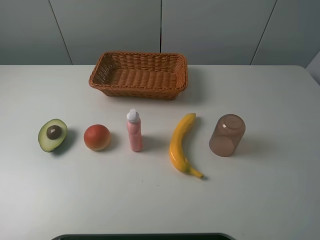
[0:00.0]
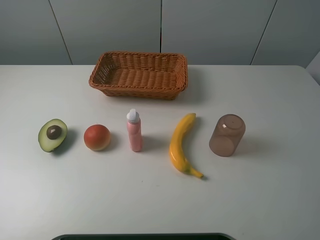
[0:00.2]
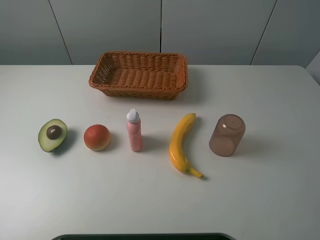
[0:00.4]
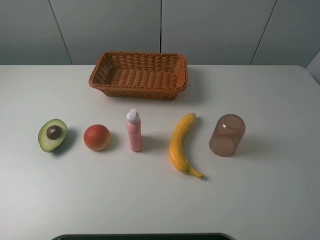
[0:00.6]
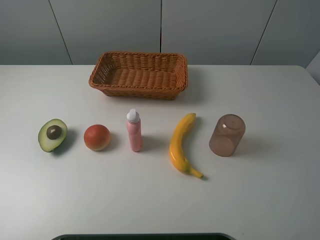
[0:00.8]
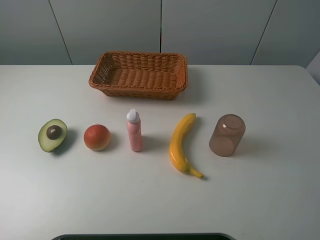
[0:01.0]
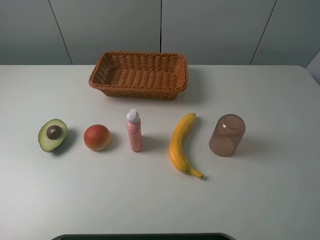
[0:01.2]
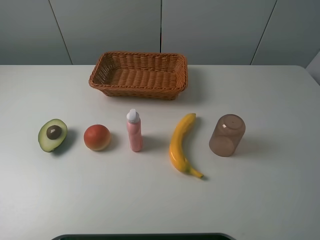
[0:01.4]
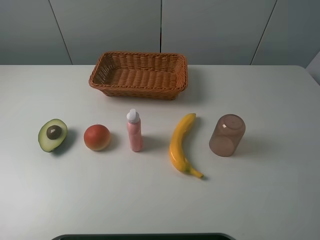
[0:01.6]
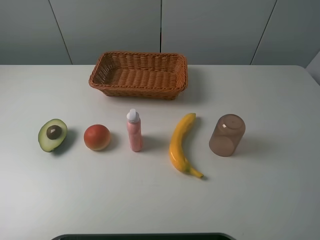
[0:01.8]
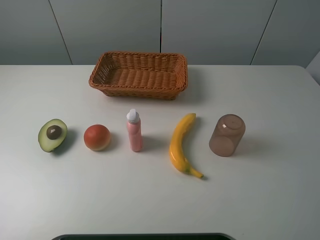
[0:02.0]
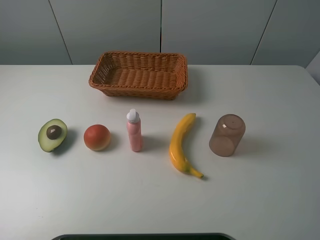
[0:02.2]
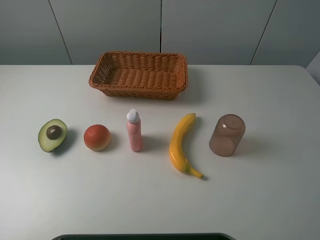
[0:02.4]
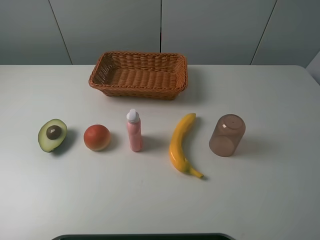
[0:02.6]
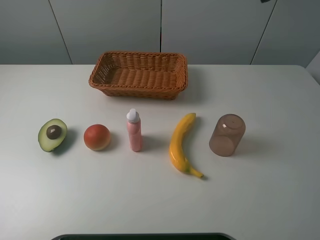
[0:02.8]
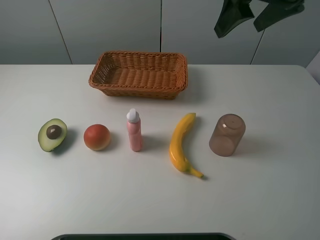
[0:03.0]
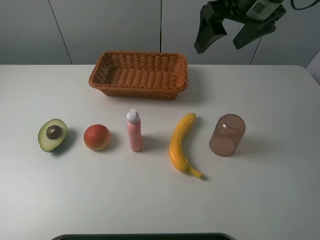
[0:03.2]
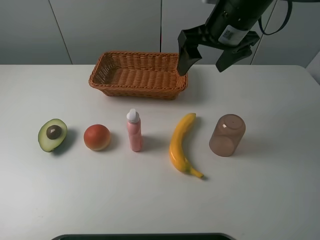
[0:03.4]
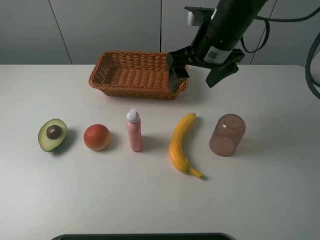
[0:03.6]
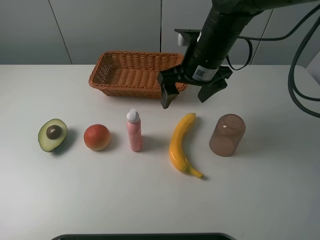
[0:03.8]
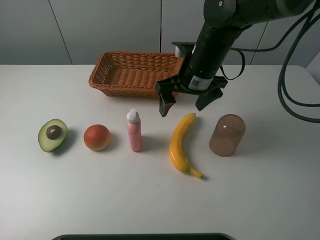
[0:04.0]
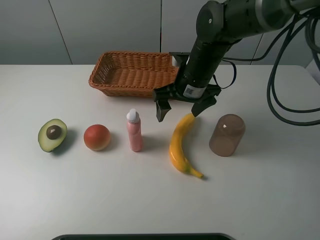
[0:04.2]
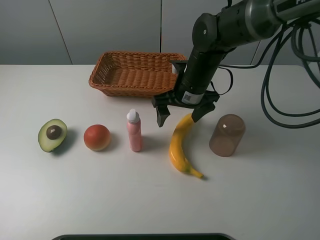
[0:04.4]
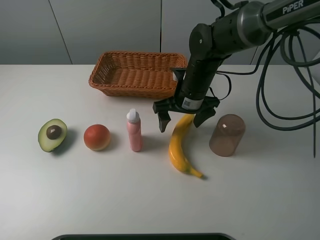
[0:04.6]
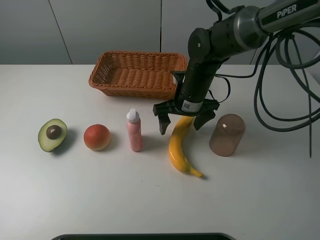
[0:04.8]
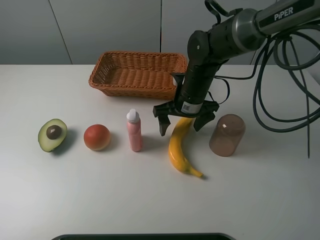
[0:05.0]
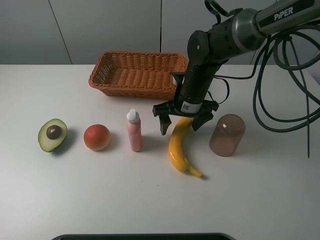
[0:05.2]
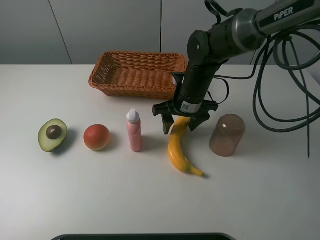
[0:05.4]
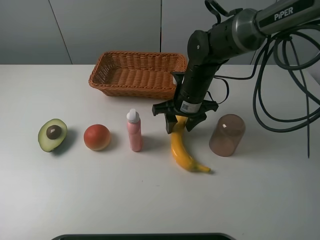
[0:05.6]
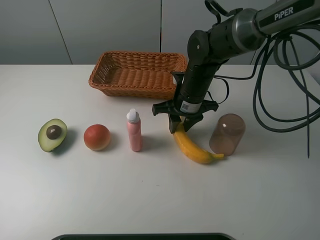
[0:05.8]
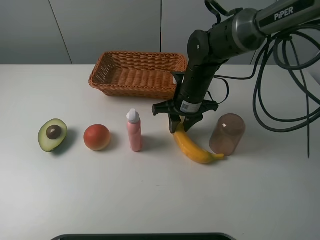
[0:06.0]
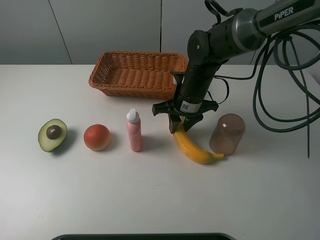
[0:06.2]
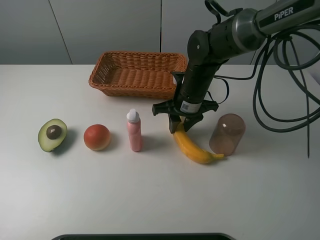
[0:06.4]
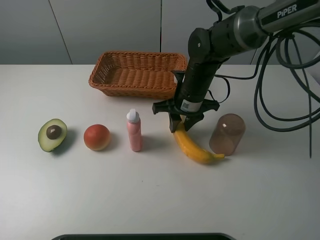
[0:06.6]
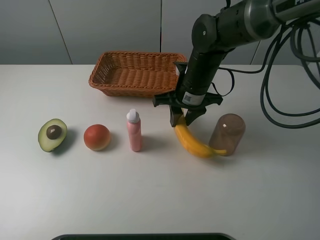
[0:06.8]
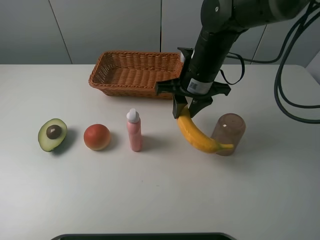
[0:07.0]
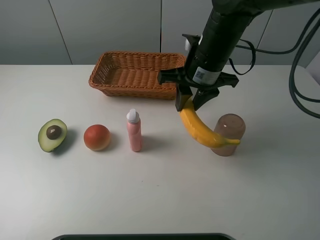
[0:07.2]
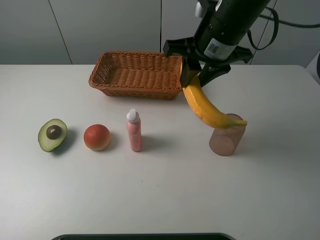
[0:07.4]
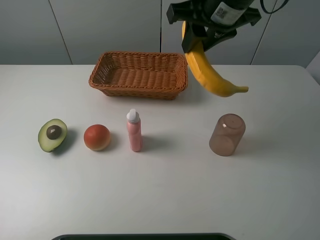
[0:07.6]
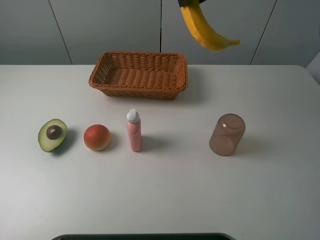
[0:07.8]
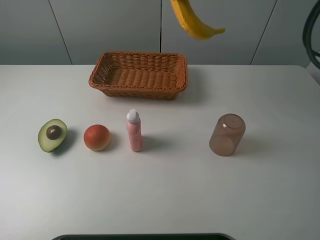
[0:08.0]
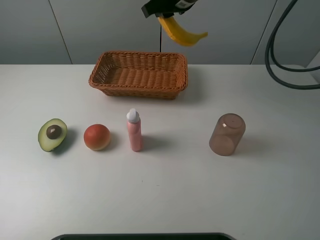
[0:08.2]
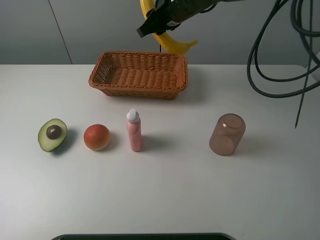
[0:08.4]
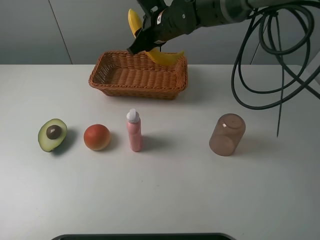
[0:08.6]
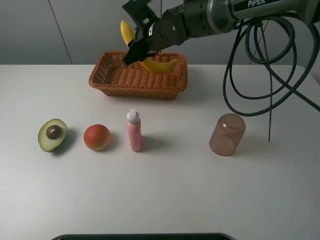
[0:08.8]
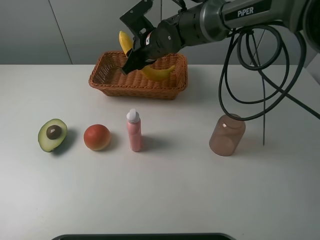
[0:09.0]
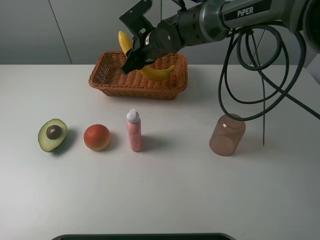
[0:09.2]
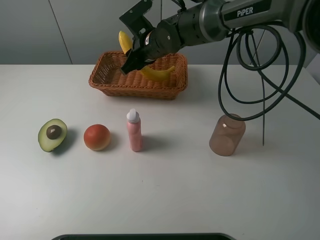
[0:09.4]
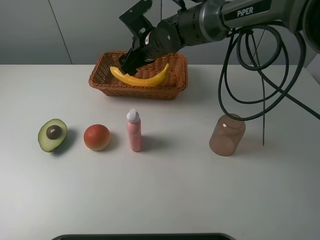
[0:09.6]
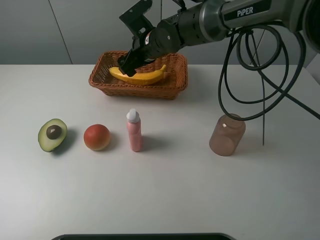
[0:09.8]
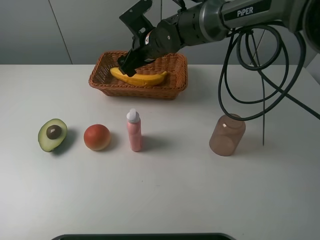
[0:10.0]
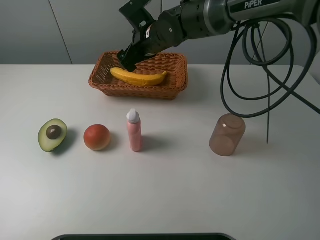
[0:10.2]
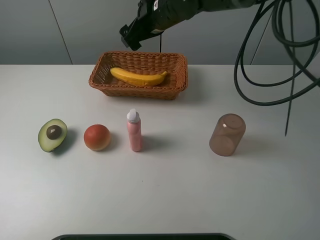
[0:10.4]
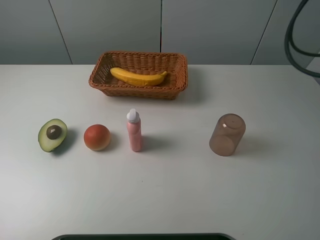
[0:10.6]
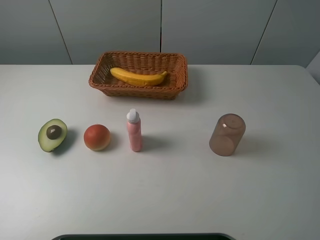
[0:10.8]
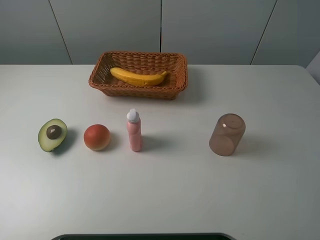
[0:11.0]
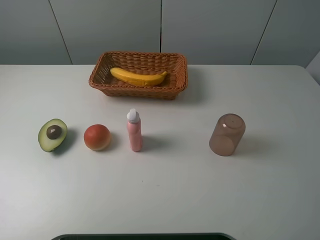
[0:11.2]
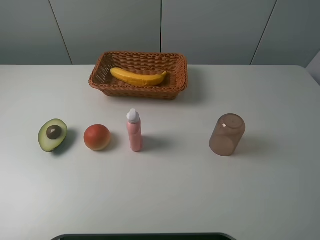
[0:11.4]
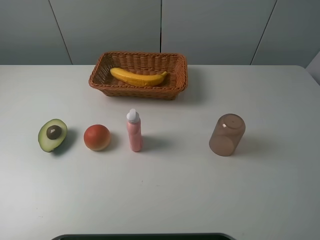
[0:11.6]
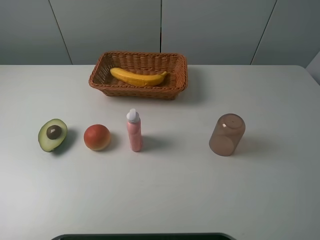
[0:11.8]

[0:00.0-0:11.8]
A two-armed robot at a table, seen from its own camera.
Task of the whole recording: randomly pick up an item from the table and put it in the basket.
Step, 0:00.0 to 0:05.6: Grasp the banana with the right gripper.
Step, 0:05.8 to 0:09.6: Place the banana into the basket with the right gripper.
0:00.0 to 0:01.4: Both grippers stay about where they are.
0:01.4 to 0:03.0: The right gripper heads forward, covering about 30 cm.
0:03.0 to 0:04.4: The right gripper moves downward and to the left, some 25 cm.
0:04.4 to 0:06.0: The right gripper closes up.
0:06.0 to 0:07.4: The right gripper moves upward, some 15 cm.
0:07.4 to 0:08.8: The right gripper shifts roughly 20 cm forward, downward and to the left.
0:08.8 to 0:10.4: The right gripper travels upward by approximately 5 cm, and opens up.
0:10.4 to 0:11.8: The right gripper travels backward, to the right and upward by roughly 50 cm.

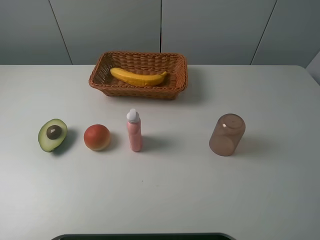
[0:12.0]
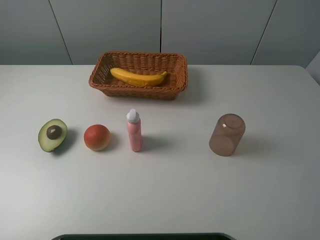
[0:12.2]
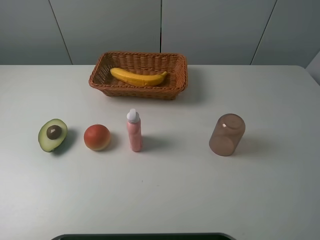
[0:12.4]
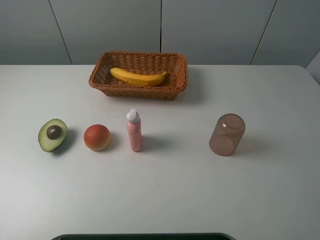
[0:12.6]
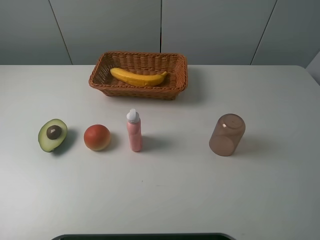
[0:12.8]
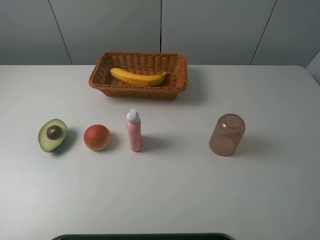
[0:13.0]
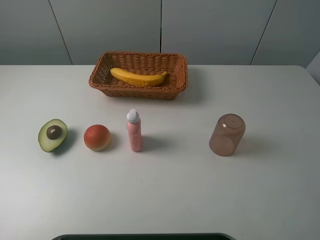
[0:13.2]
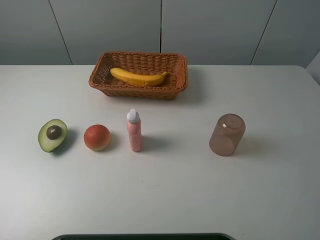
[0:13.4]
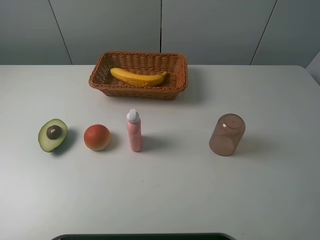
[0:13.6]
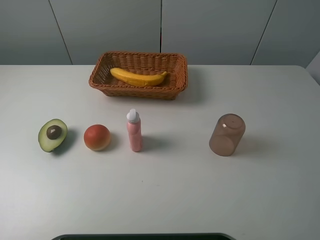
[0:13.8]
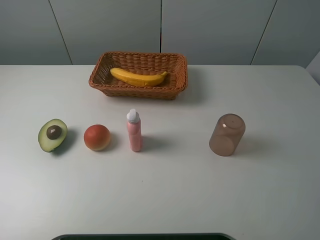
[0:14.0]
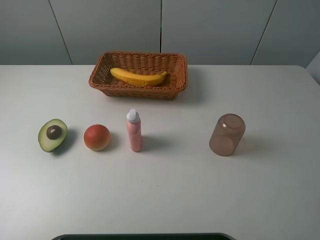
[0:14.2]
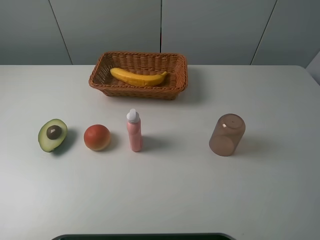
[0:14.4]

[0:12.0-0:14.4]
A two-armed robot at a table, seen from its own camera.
Task of the whole recording: randomly pick up an item from the table and put it in the basket.
0:13.2 to 0:14.4: Both grippers stay about where they are.

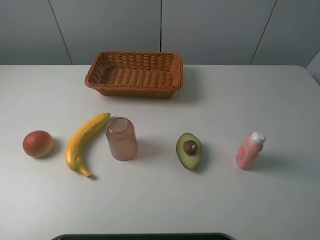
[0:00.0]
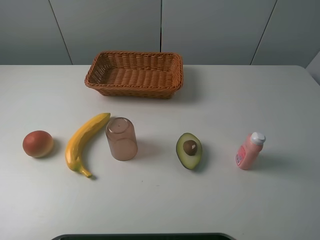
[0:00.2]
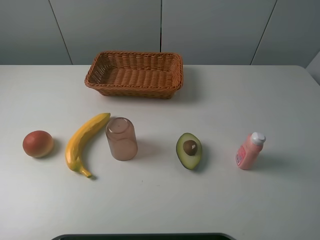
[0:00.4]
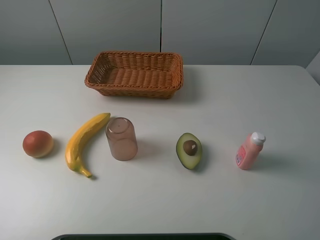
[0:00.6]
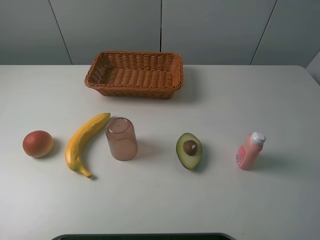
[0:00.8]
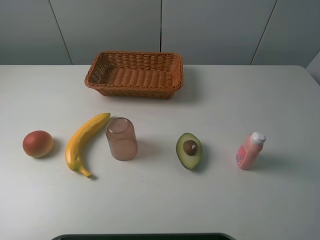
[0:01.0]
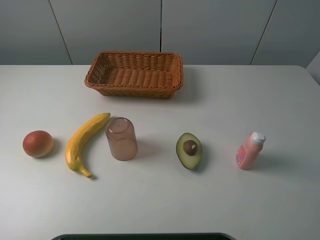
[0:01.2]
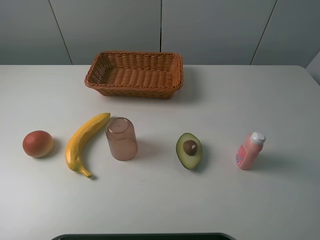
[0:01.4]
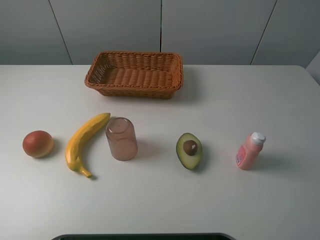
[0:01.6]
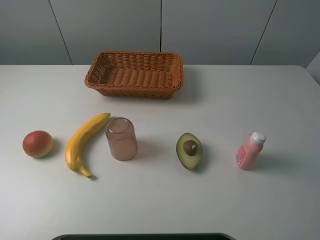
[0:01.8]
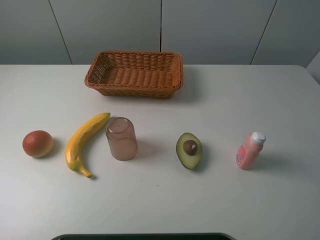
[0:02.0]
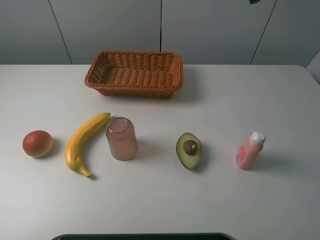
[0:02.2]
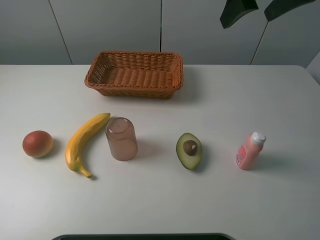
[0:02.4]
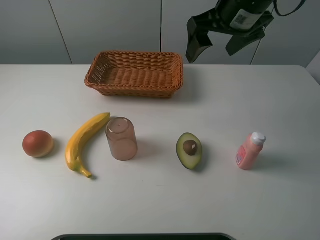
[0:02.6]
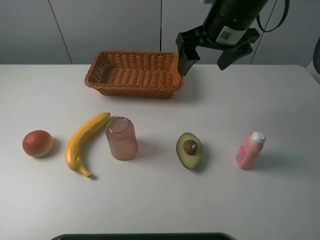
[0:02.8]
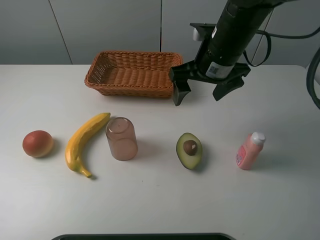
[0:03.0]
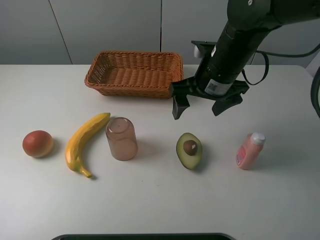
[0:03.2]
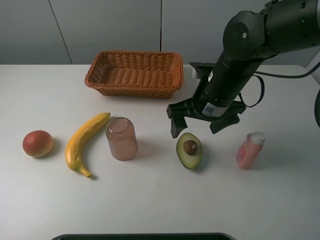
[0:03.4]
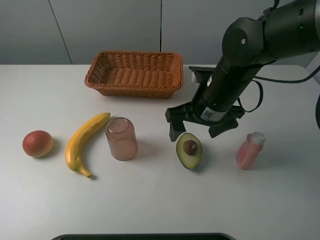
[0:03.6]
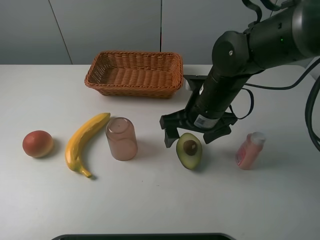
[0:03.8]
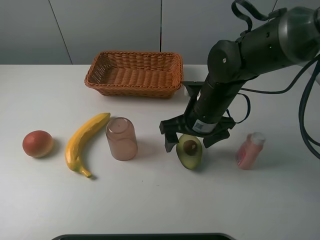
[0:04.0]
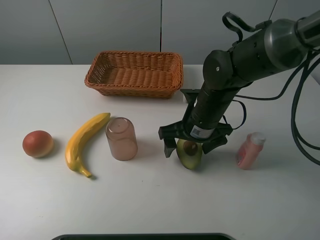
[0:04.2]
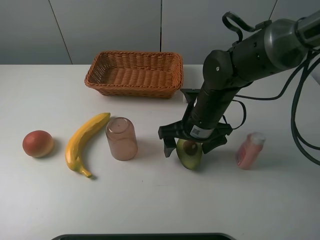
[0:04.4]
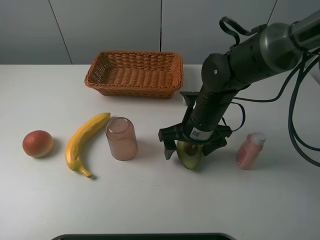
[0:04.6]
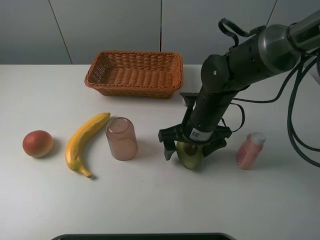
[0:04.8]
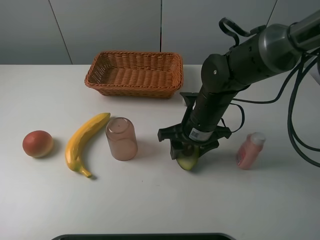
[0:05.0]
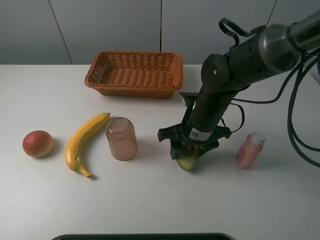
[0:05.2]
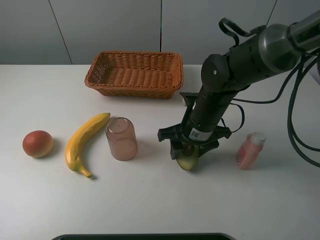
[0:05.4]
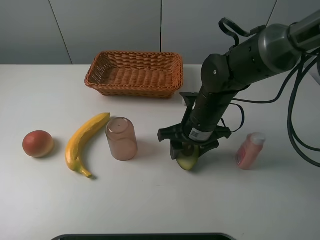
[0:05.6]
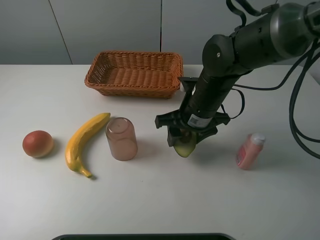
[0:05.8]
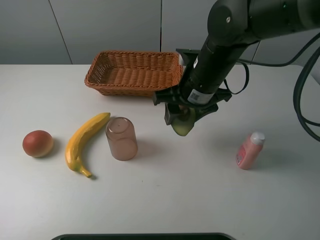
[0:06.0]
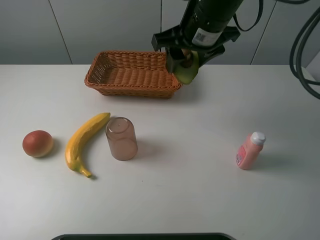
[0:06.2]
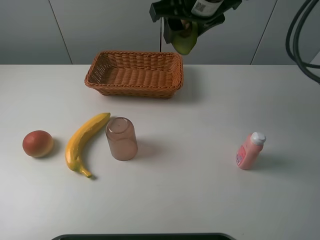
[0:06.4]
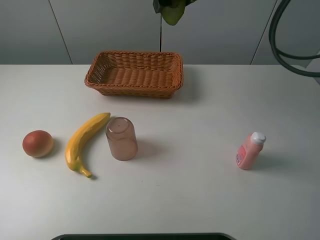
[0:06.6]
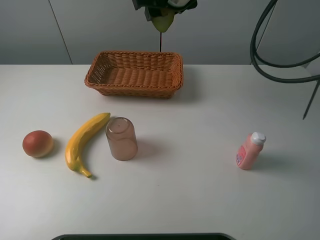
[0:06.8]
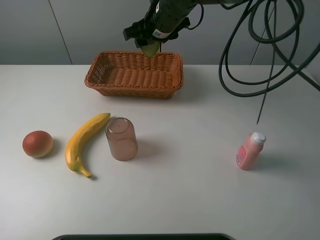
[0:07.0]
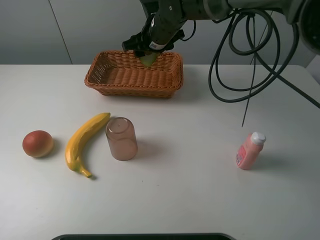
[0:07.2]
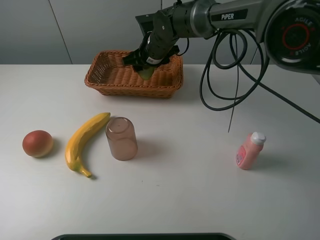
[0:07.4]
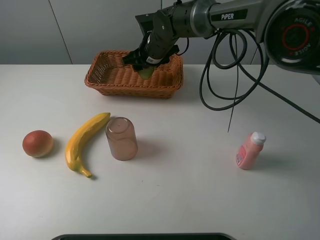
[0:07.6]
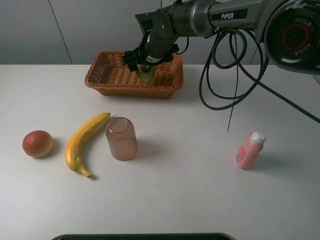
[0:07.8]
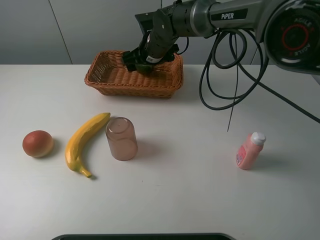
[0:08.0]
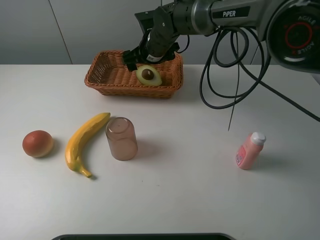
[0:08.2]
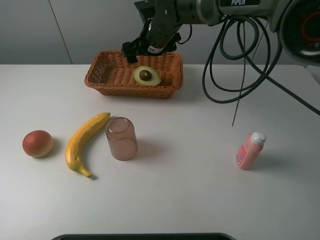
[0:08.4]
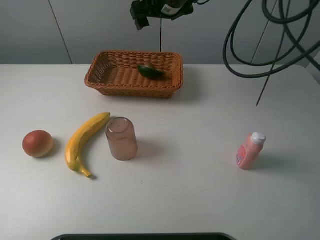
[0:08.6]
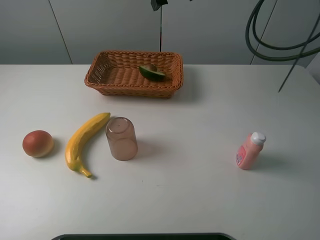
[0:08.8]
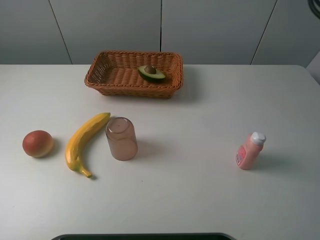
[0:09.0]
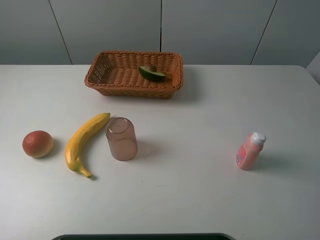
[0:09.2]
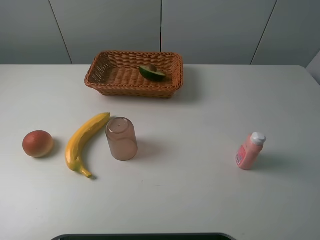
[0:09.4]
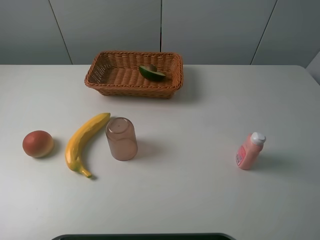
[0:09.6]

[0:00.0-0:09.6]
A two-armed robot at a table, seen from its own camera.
Task of the whole recording: randomly pick up an item from the table and put it in the basket.
Step, 0:00.0 to 0:05.0: Grasp the avocado with the right gripper.
Step, 0:05.2 to 0:08.4: Place the avocado into the basket with the right gripper.
0:01.6 to 0:03.2: The right gripper goes about 35 cm downward, forward and to the left.
0:03.2 to 0:04.8: The right gripper is displaced downward by approximately 10 cm.
0:04.8 to 0:06.4: The right gripper heads upward, covering roughly 20 cm, and closes.
0:06.4 to 0:08.0: The right gripper moves downward, forward and to the left, roughly 20 cm, and opens.
0:08.0 to 0:09.6: The right gripper heads upward, to the right and backward, covering about 50 cm.
